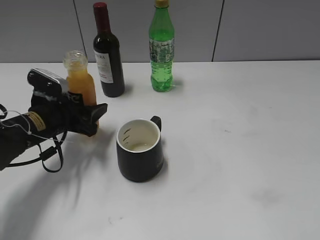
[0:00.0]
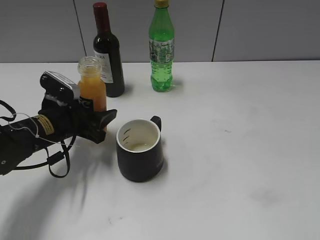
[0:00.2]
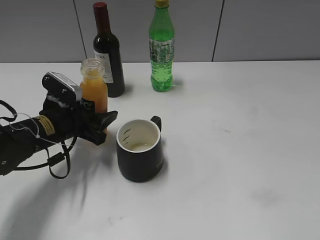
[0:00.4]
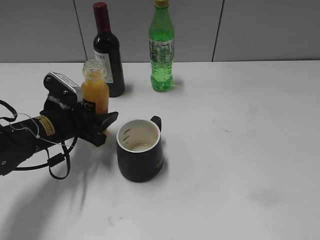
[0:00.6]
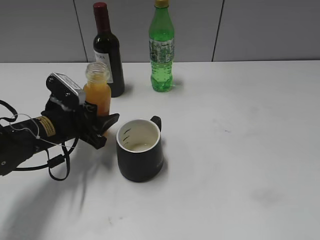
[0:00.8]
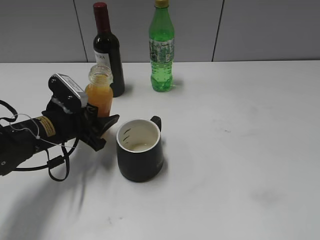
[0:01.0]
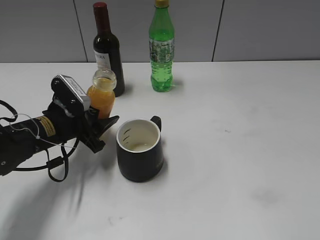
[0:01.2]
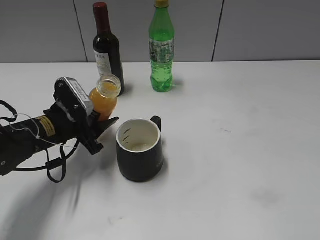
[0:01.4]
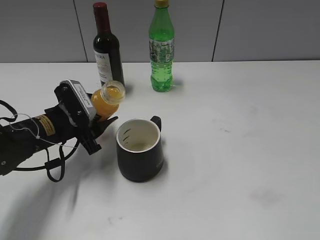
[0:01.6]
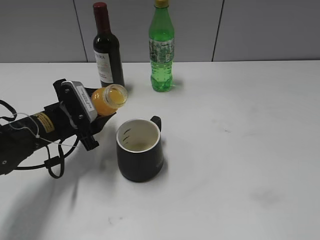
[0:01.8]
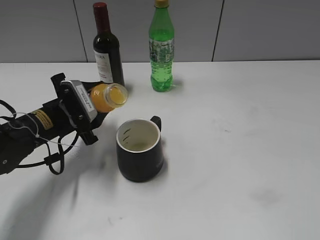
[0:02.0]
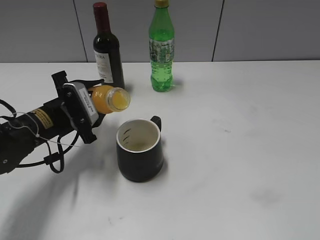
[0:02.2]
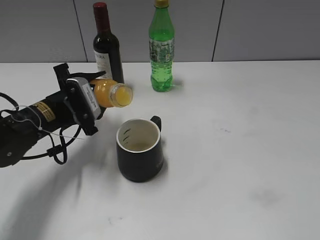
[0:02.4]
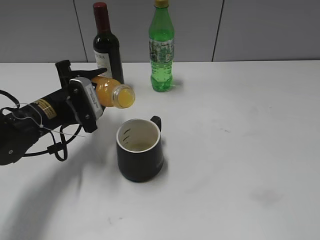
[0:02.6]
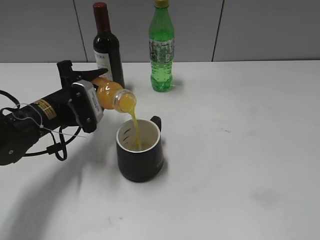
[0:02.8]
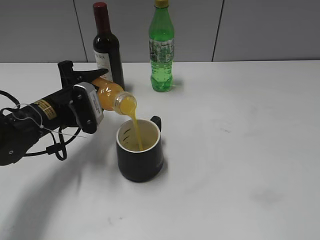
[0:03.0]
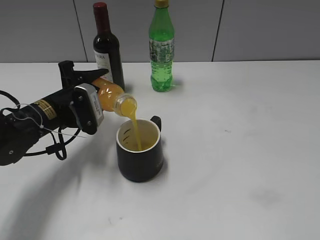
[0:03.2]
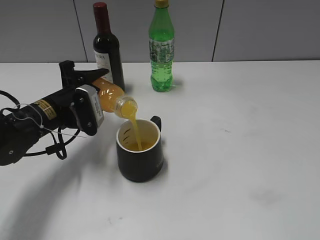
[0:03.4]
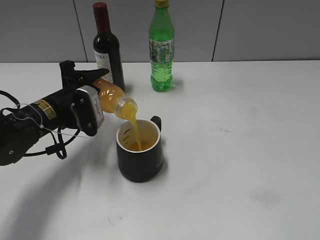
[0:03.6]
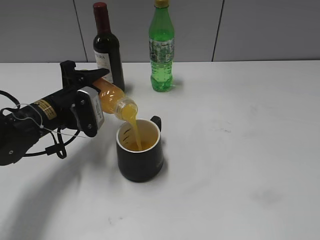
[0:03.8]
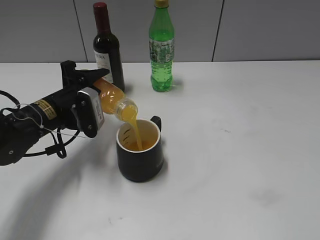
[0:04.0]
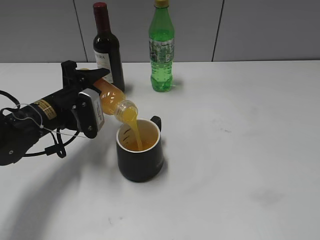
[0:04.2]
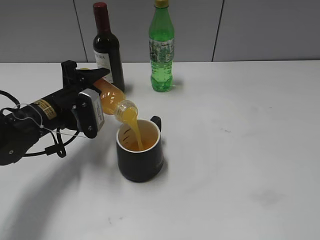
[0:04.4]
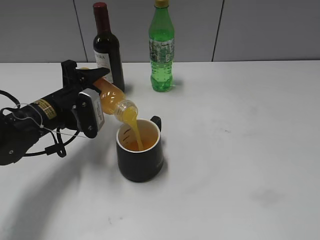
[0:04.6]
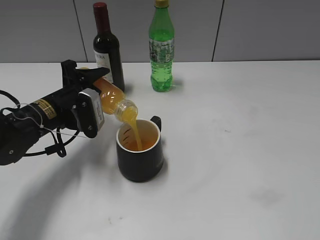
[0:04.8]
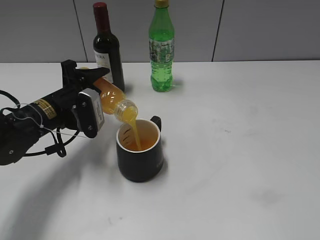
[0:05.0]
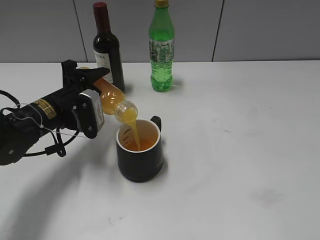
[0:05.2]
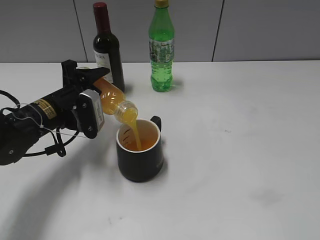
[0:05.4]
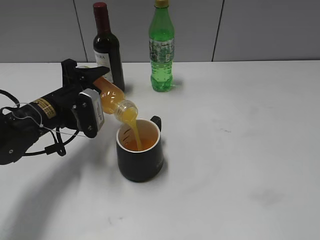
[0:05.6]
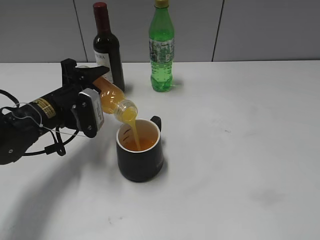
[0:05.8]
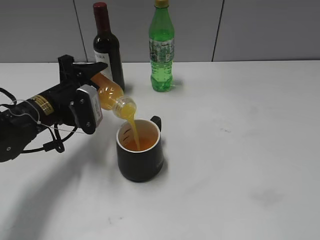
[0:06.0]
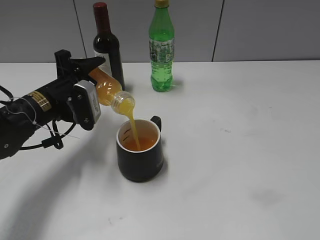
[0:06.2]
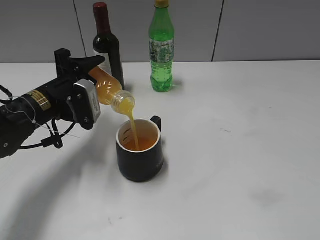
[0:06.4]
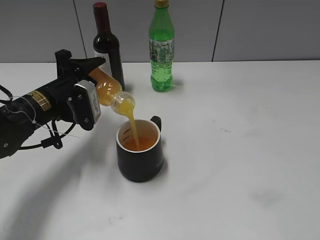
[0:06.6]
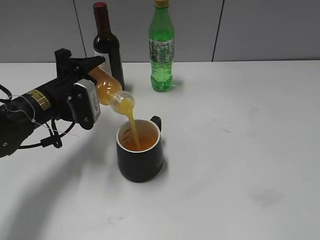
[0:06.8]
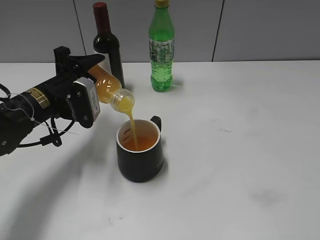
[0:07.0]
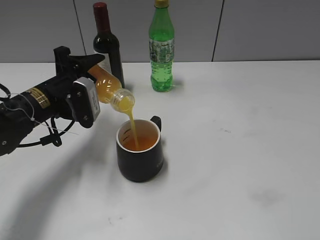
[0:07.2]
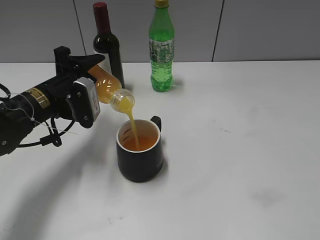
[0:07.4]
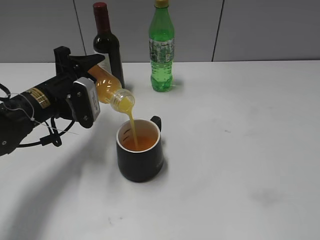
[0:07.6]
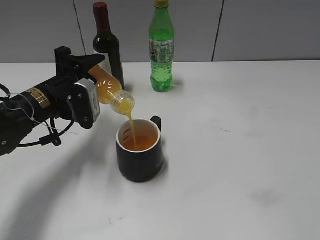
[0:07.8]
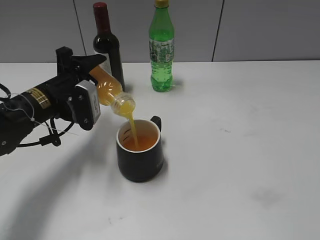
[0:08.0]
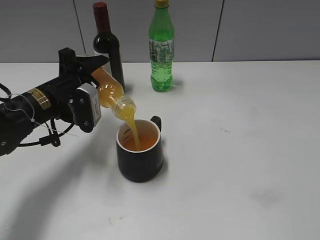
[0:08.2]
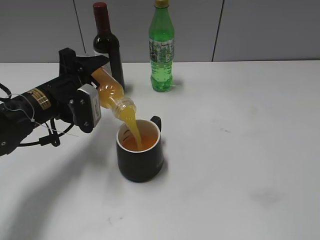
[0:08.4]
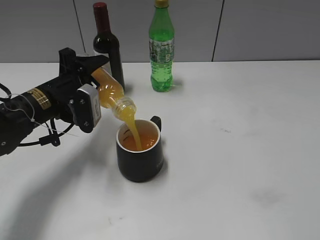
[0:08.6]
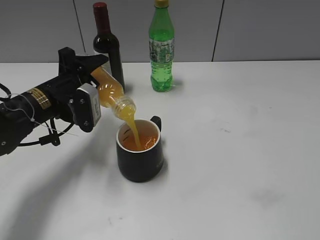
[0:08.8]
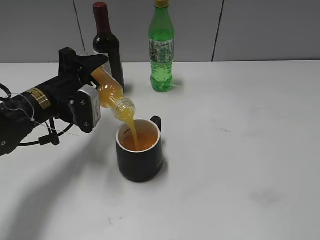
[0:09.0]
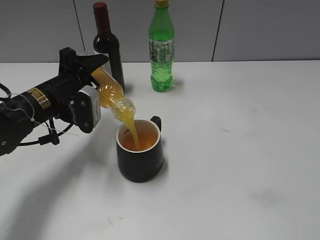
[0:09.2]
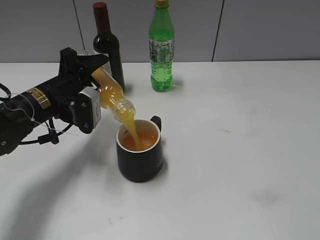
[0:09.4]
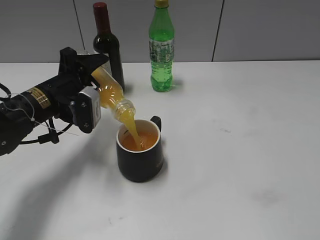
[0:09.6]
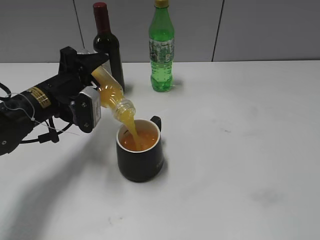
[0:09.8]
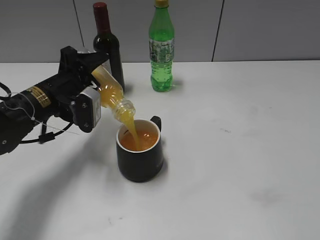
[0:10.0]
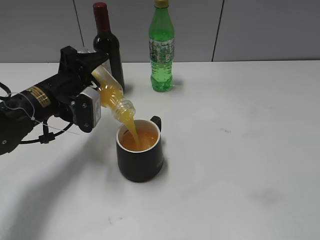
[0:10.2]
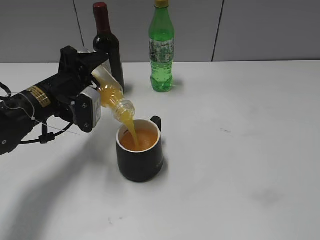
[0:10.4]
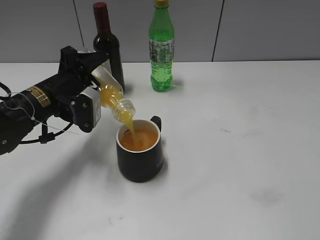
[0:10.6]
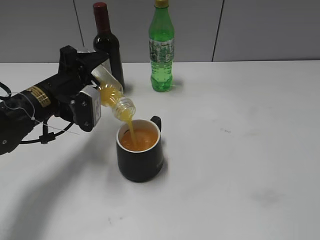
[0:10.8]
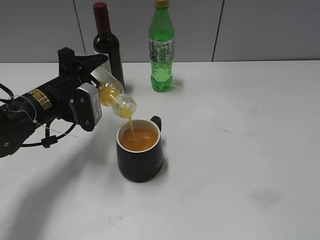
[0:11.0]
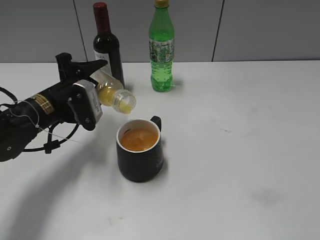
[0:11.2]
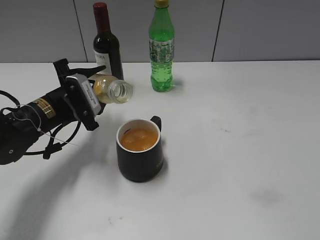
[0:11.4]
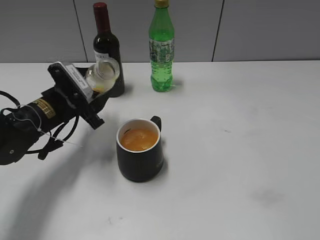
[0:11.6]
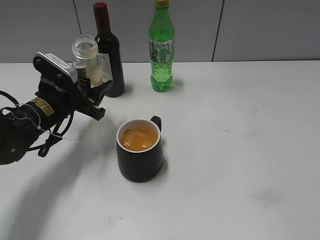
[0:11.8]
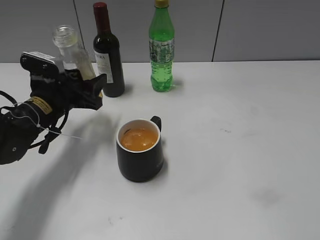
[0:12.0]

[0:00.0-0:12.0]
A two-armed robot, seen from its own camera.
Step, 0:00.0 to 0:11.0: Pour the orange juice from bottle to cup with left gripper.
0:03.0 to 0:04.4: The grippers stay close to where they were, moving slightly.
0:04.4 to 0:06.0: Both grippers stay about where they are.
0:06.0 to 0:10.4: The grippers move only a little.

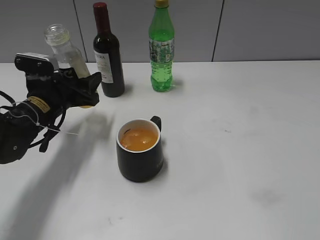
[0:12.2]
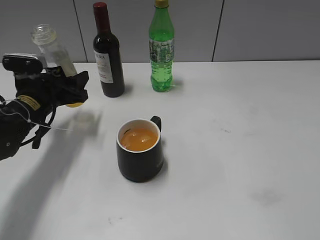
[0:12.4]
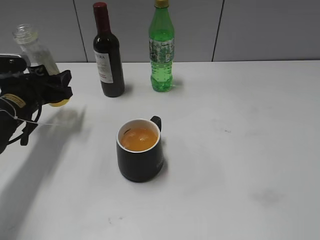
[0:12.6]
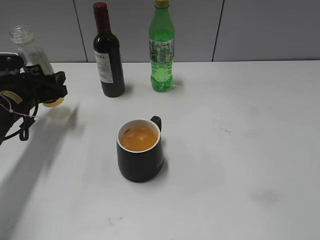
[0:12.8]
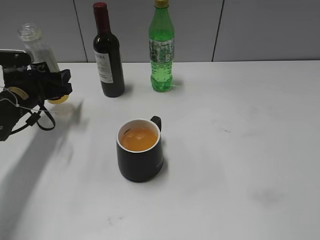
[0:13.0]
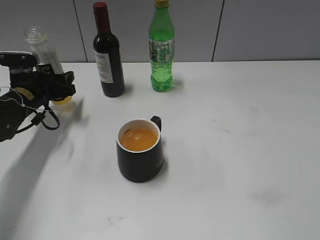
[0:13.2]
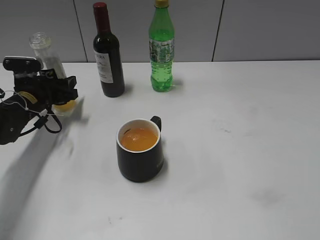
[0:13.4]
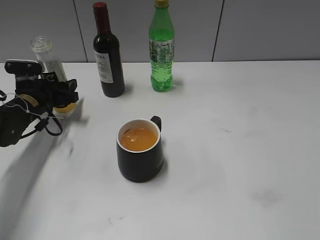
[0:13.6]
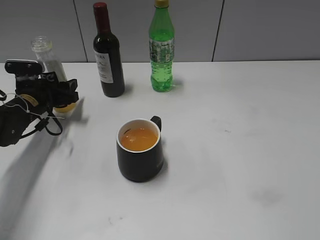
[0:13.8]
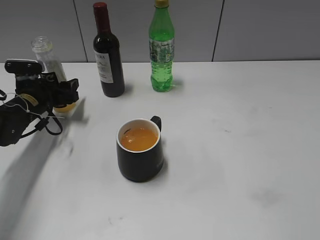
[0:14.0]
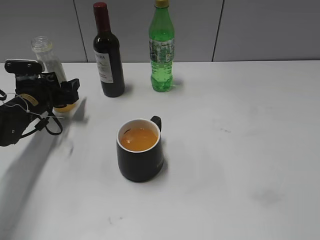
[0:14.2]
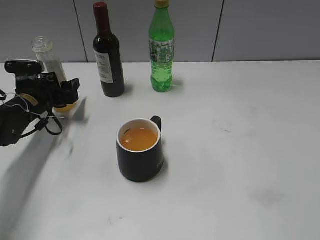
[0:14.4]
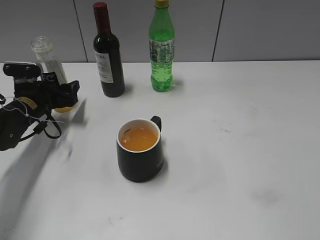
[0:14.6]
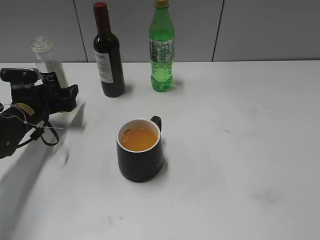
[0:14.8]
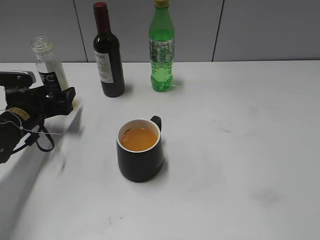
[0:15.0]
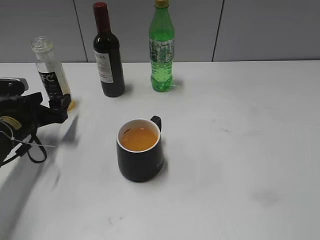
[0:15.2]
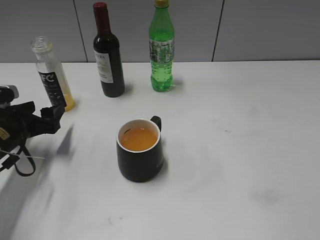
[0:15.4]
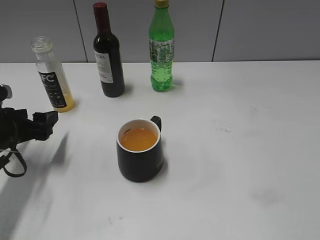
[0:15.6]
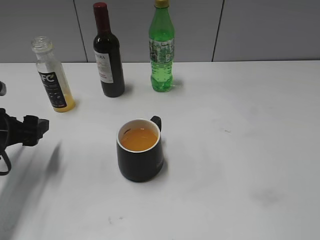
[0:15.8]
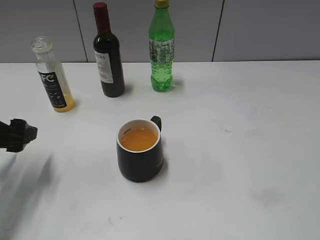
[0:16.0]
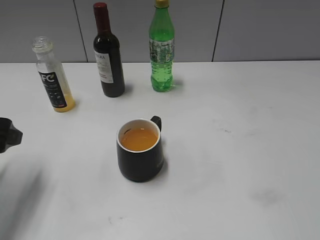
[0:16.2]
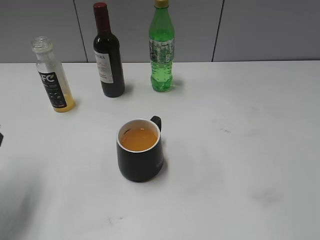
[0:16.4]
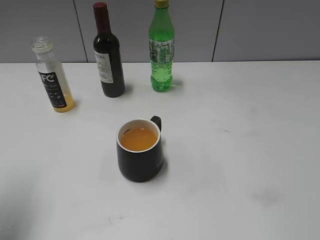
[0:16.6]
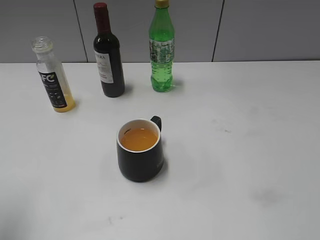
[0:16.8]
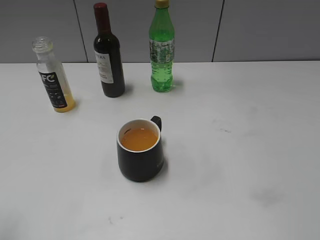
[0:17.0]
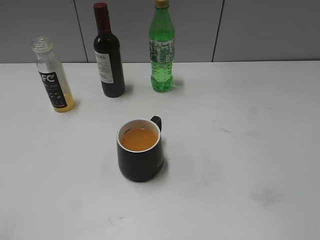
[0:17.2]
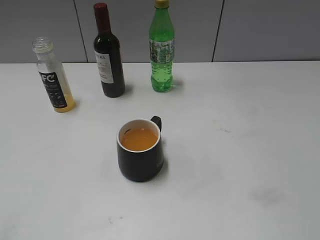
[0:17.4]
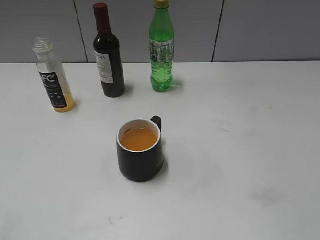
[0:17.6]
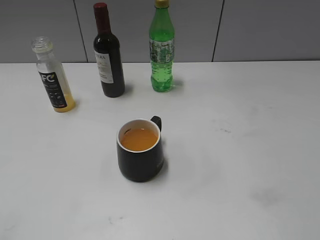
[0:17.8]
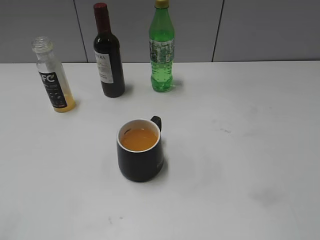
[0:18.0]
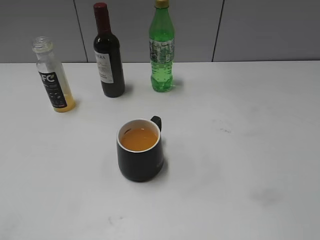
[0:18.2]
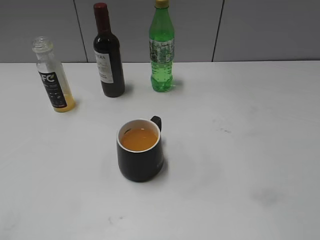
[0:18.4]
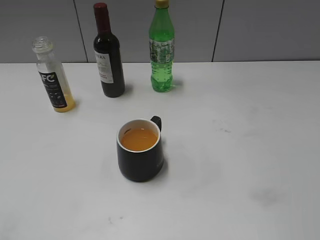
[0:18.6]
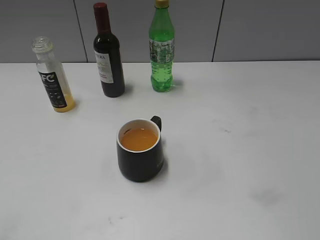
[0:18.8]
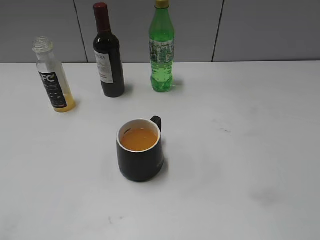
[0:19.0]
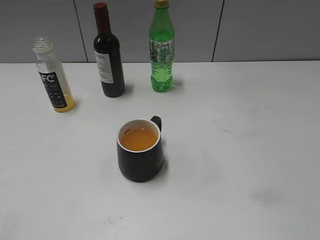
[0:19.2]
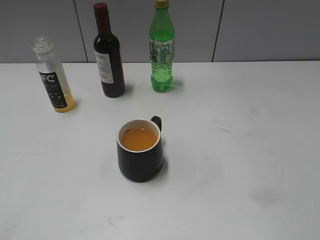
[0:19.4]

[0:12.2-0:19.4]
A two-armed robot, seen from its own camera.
Step, 0:12.2 to 0:14.0: Place the orange juice bottle on the table with left gripper.
0:12.2 to 0:13.6: The left gripper travels to the left and forward by about 10 cm.
0:13.6 to 0:15.0: The left gripper opens.
0:15.0 to 0:16.6: The left gripper moves upward and backward, roughly 25 cm.
0:16.6 to 0:18.0: The left gripper is displaced backward by roughly 20 cm.

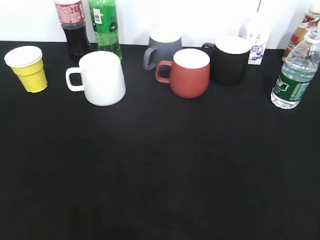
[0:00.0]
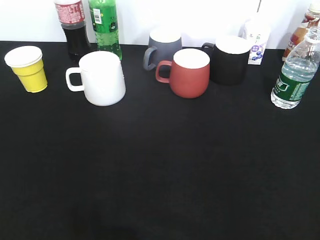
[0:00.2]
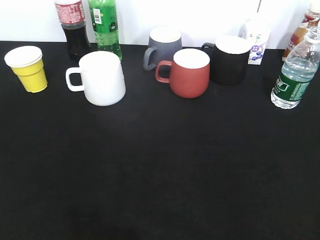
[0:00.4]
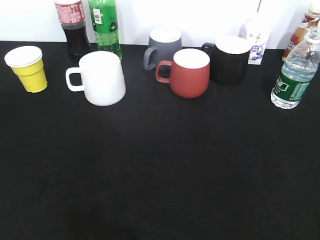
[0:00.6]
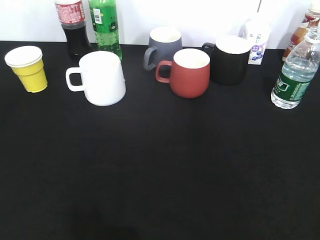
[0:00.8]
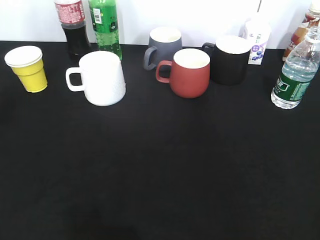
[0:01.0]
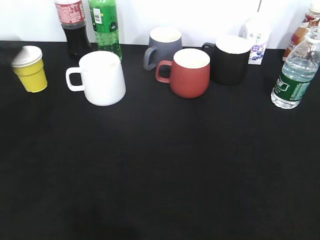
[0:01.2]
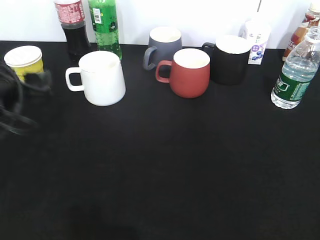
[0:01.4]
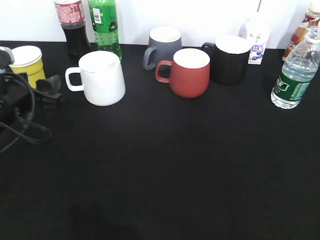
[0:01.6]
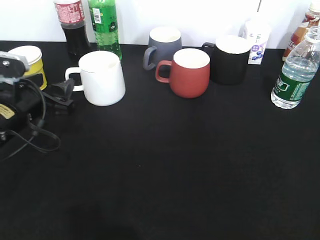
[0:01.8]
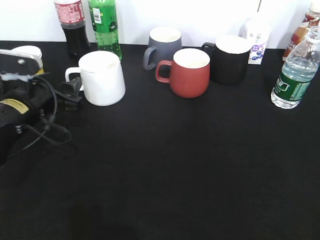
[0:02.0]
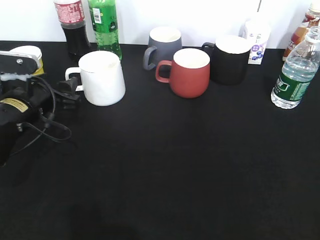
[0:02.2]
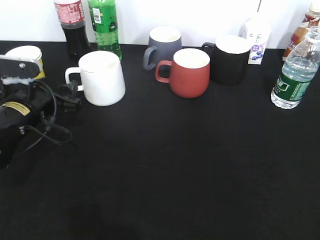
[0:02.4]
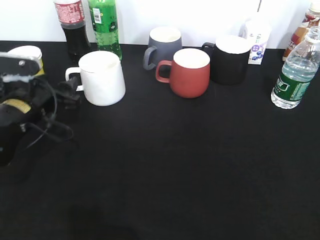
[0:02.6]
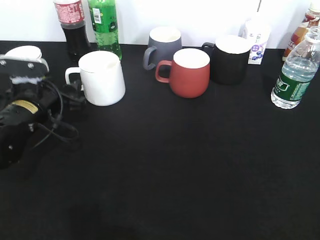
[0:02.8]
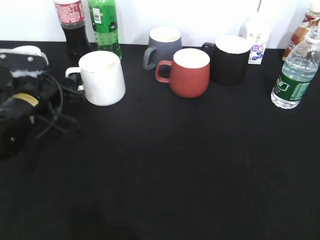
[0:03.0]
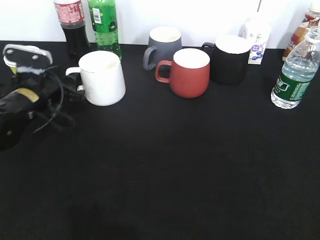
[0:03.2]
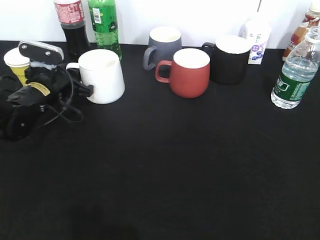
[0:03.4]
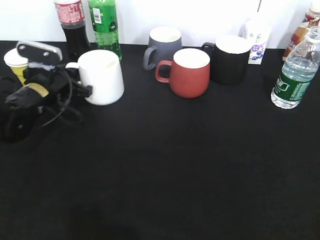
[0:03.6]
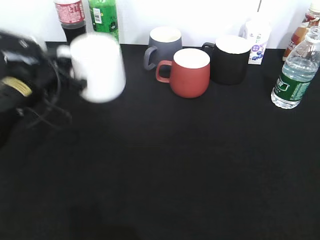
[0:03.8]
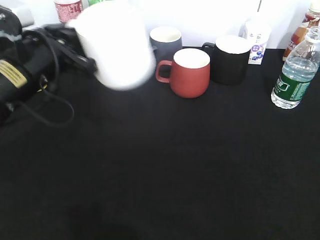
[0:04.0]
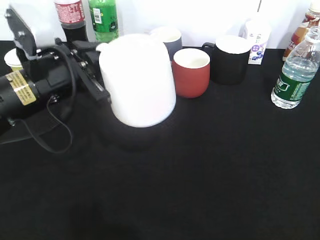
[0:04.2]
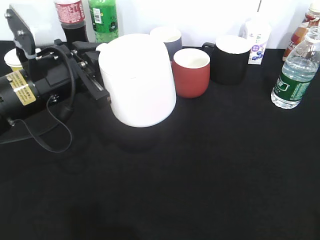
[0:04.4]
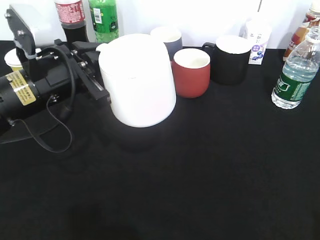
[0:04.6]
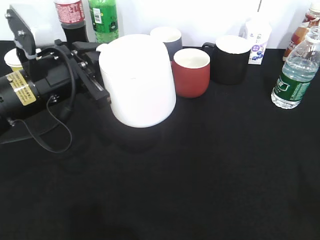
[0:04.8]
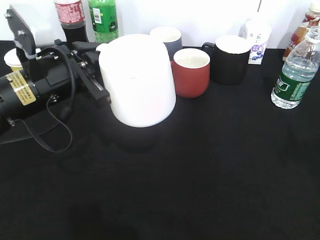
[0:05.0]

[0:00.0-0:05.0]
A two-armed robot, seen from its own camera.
Step, 0:00.0 to 0:03.4: Grasp the white cup with left gripper.
Step, 0:03.6 to 0:04.6: Lift the white cup with left gripper.
0:00.0 to 0:01.6: The left gripper shifts some 30 cm forward and downward, and opens its fingers.
0:01.6 to 0:03.4: The left gripper moves forward and downward, some 10 cm, and closes.
0:03.4 to 0:05.0: The left gripper shifts some 15 cm backward, upward and to the right, while the right gripper shifts roughly 15 cm forward.
